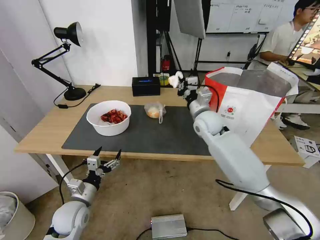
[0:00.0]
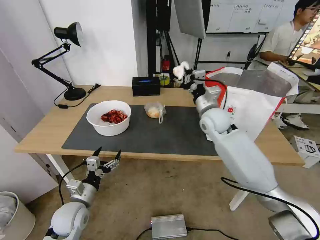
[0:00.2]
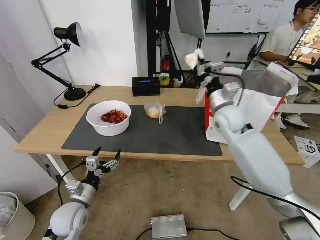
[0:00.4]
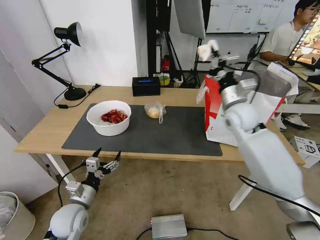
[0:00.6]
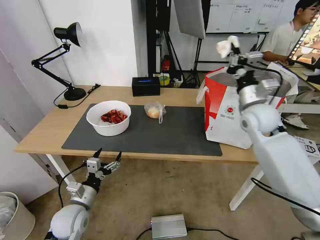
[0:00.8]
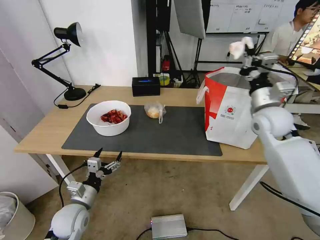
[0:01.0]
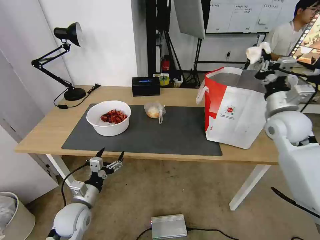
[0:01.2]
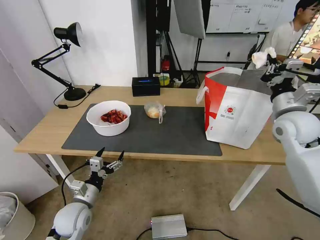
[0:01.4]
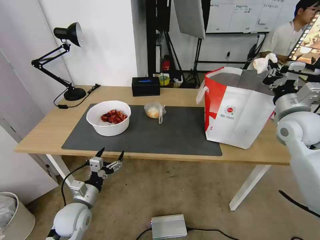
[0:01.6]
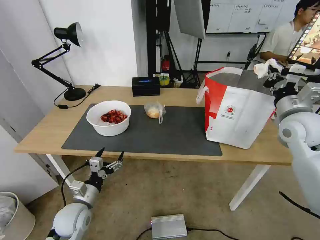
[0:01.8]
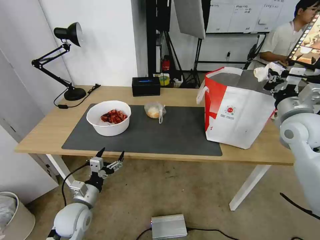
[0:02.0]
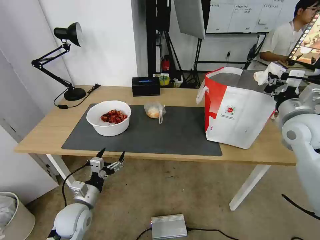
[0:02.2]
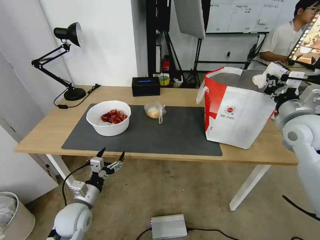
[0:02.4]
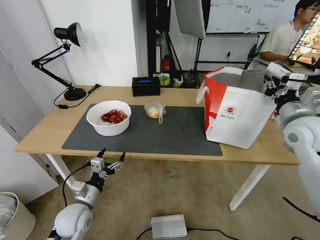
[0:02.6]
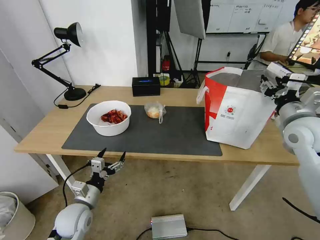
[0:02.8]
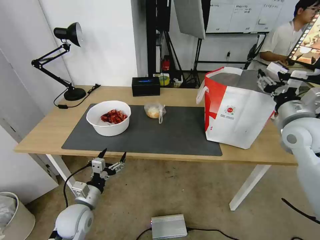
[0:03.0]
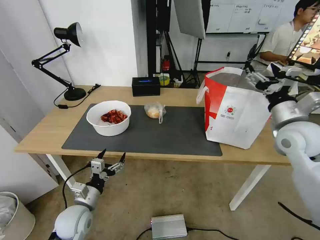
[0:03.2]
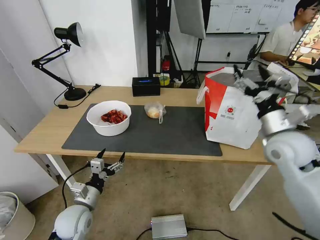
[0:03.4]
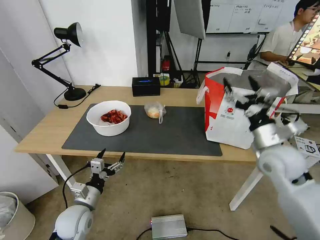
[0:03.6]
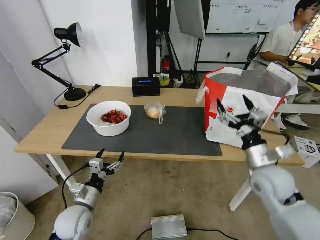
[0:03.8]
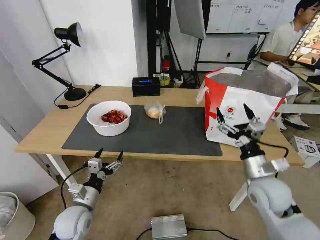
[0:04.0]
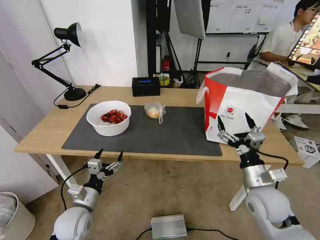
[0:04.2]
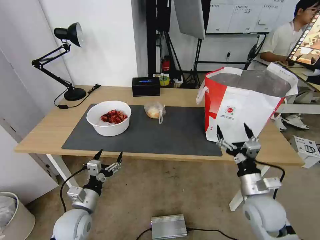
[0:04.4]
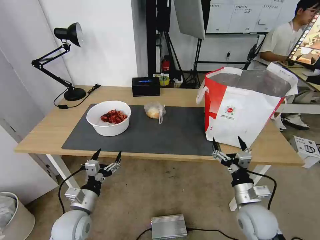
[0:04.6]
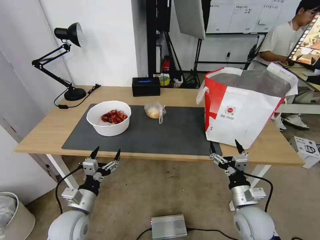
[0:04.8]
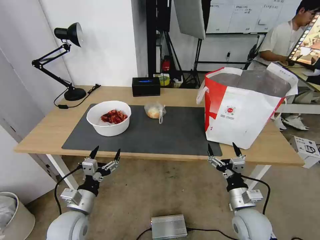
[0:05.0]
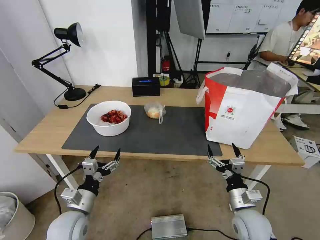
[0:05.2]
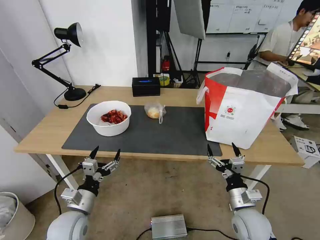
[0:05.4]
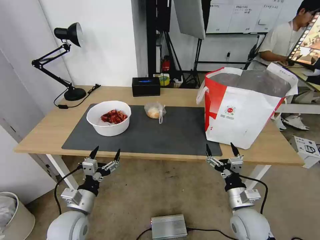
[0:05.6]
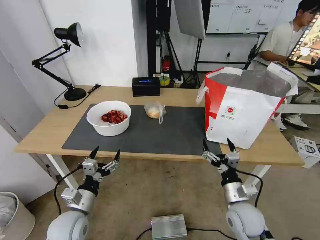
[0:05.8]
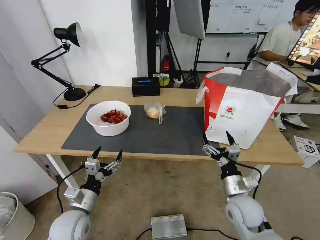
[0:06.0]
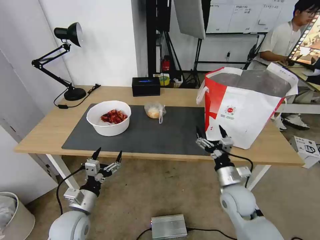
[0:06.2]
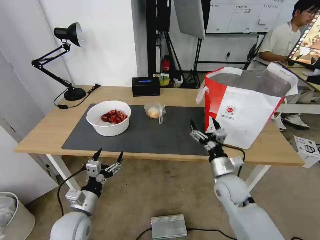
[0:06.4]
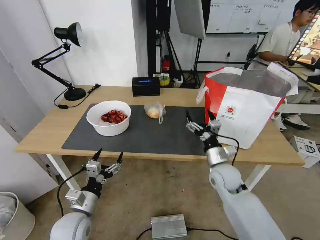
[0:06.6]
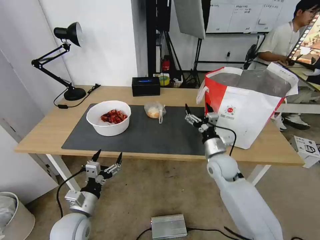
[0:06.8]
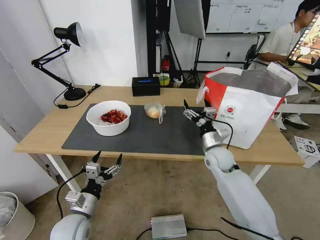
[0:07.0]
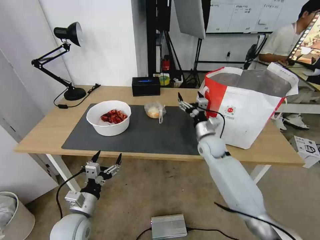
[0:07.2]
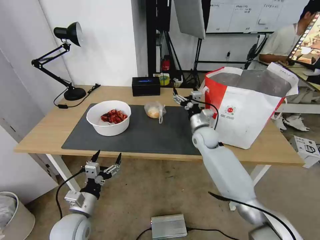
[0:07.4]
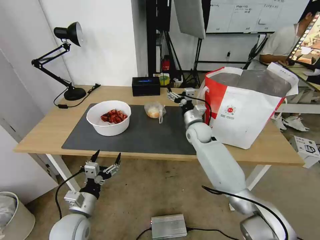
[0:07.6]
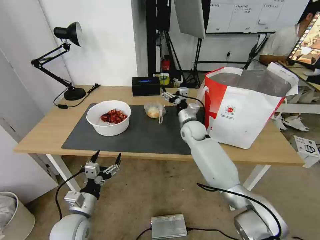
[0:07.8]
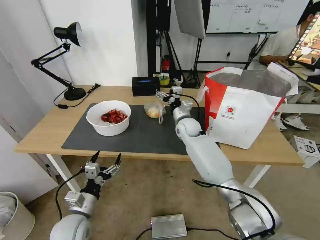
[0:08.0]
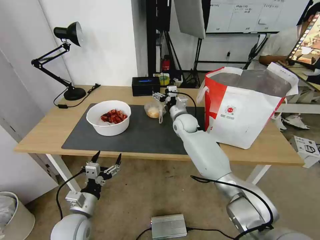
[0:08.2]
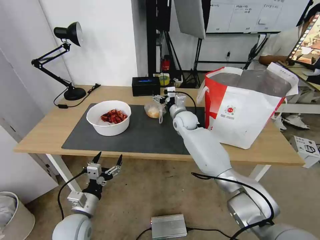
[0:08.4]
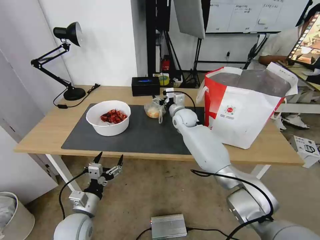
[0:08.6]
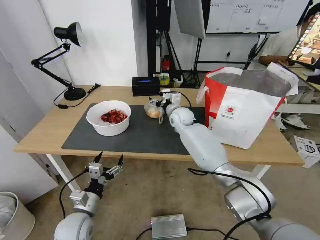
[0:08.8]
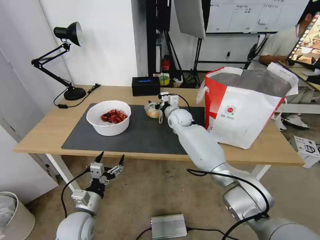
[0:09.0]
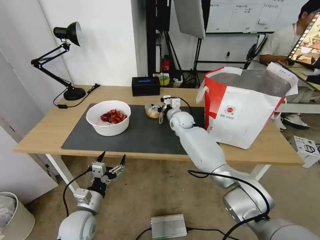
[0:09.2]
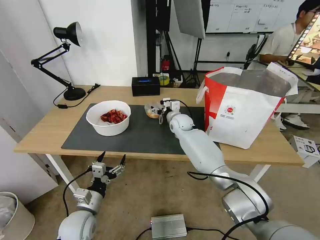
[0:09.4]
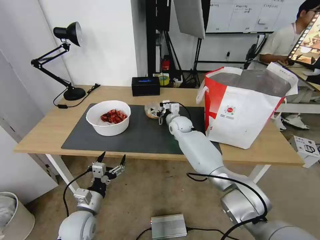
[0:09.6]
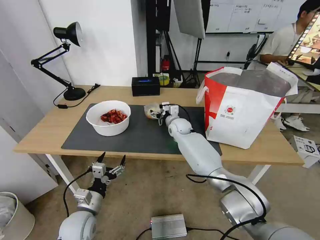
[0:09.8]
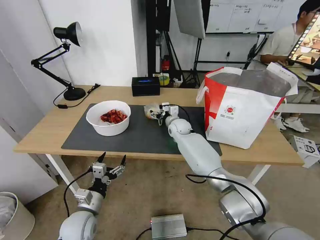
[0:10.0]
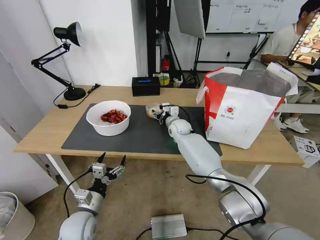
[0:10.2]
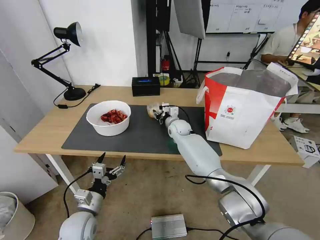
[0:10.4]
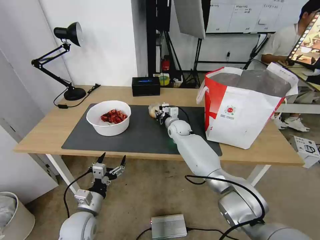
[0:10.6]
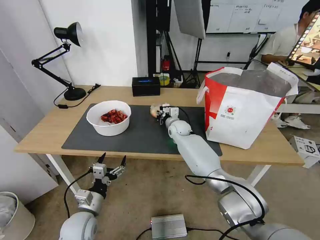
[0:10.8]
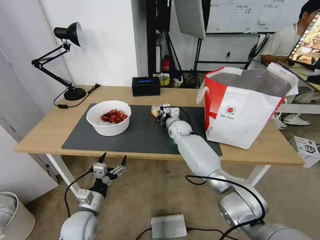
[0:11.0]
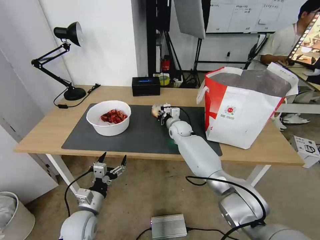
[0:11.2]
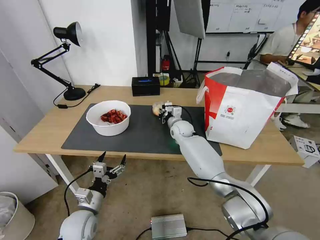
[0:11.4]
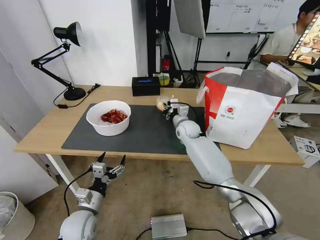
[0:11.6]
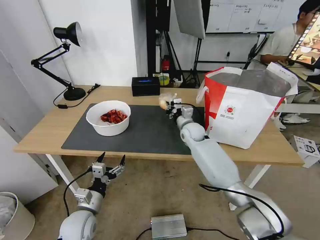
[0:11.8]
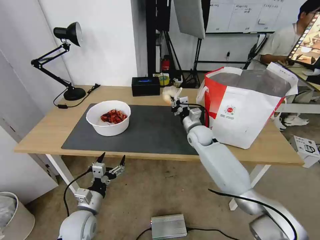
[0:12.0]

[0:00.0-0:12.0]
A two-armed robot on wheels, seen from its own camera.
Task of the whole recording: Pick up the trash from the table and place it into the takeout bag.
0:00.0 to 0:01.6: The right gripper goes roughly 25 cm to the right and backward.
0:01.6 to 0:03.0: The right gripper opens up.
0:03.0 to 0:04.4: The right gripper is displaced downward, backward and to the left by roughly 25 cm.
0:04.4 to 0:06.0: The right gripper moves about 5 cm.
0:06.0 to 0:07.6: The right gripper goes roughly 30 cm forward.
0:07.6 to 0:09.0: The right gripper is displaced to the left and forward by approximately 10 cm.
0:09.0 to 0:10.4: The right gripper is displaced downward by approximately 5 cm, and closes up.
0:10.4 to 0:12.0: The right gripper shifts about 10 cm to the right and backward, and closes up.

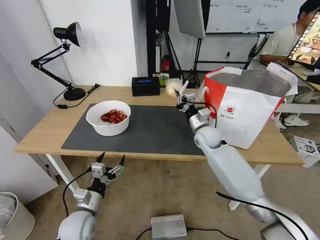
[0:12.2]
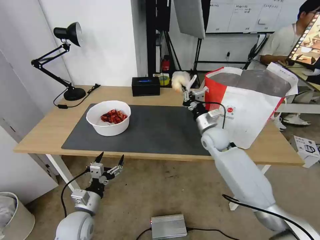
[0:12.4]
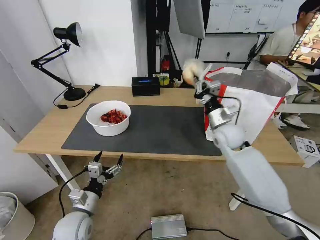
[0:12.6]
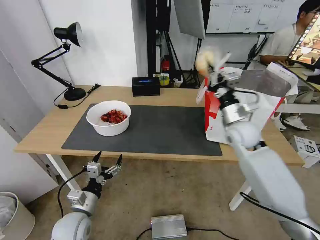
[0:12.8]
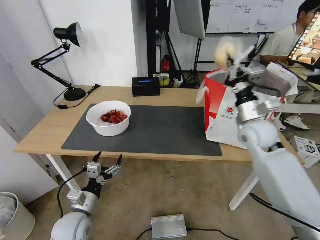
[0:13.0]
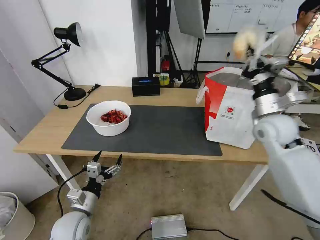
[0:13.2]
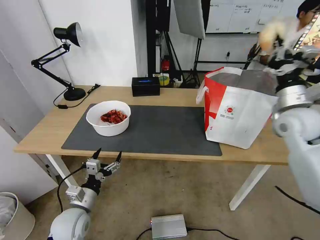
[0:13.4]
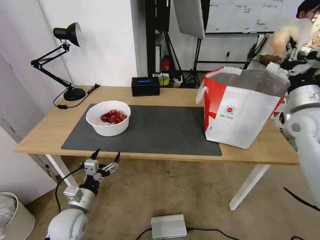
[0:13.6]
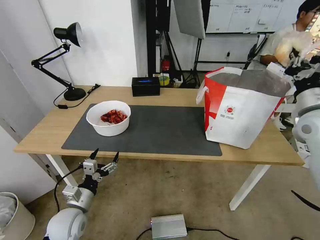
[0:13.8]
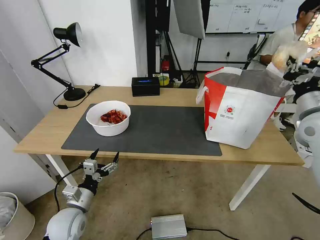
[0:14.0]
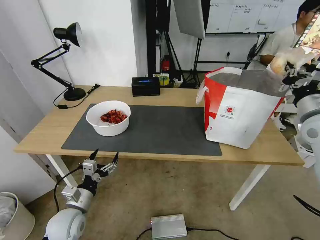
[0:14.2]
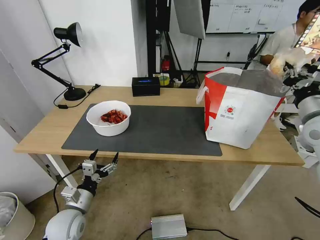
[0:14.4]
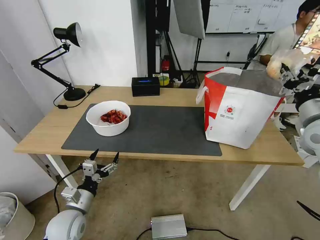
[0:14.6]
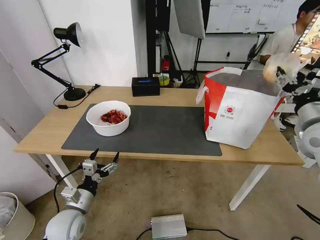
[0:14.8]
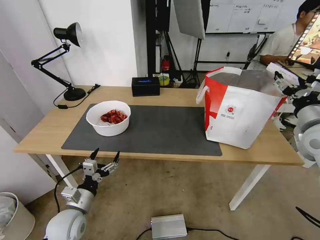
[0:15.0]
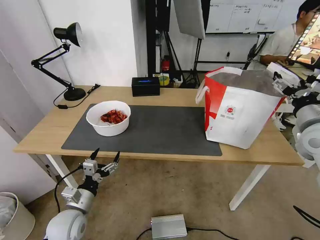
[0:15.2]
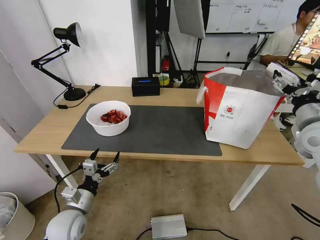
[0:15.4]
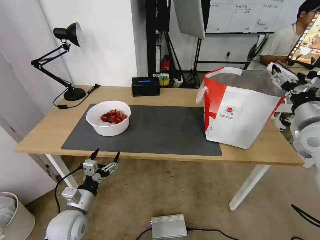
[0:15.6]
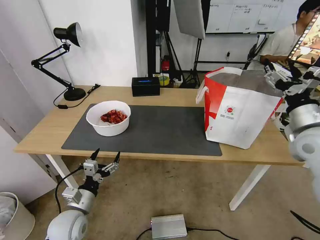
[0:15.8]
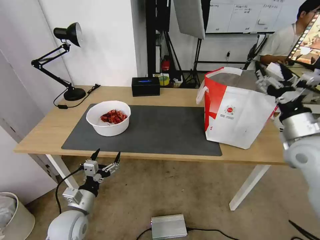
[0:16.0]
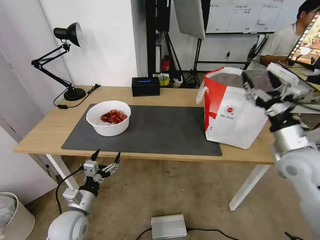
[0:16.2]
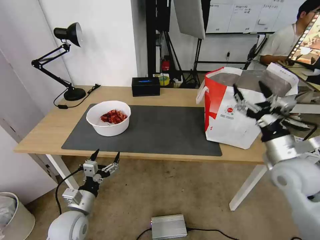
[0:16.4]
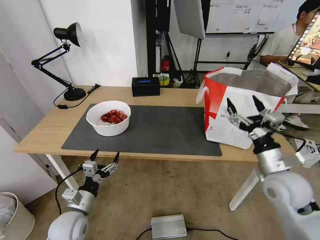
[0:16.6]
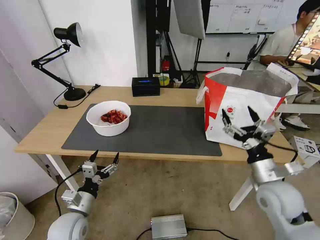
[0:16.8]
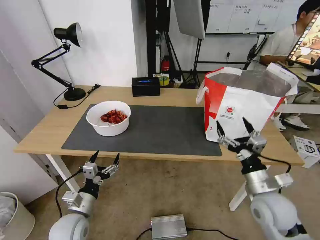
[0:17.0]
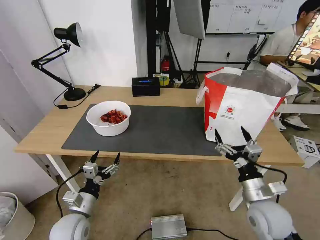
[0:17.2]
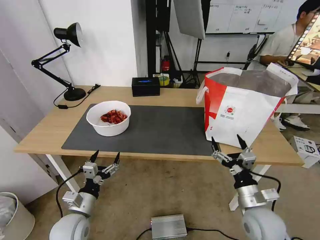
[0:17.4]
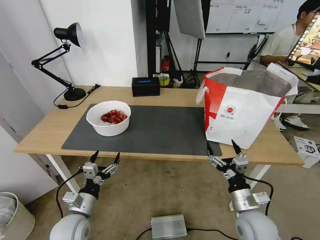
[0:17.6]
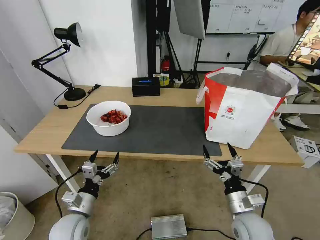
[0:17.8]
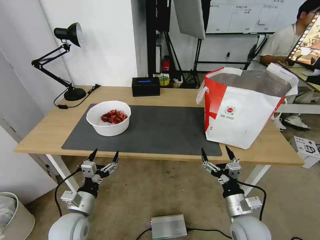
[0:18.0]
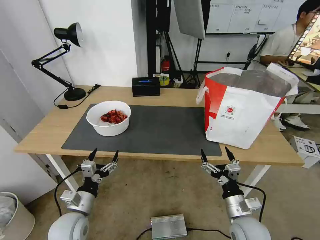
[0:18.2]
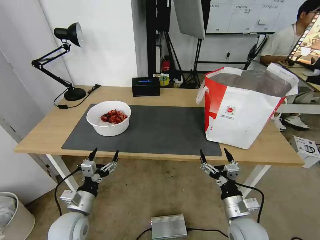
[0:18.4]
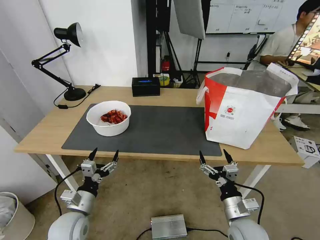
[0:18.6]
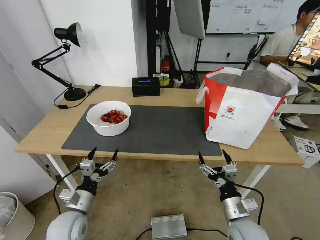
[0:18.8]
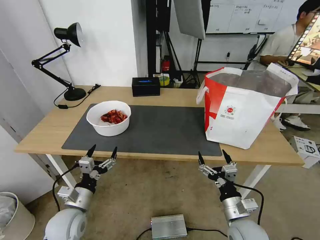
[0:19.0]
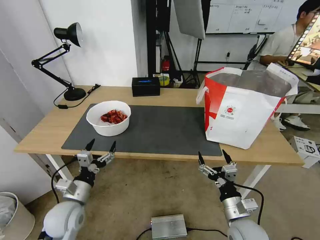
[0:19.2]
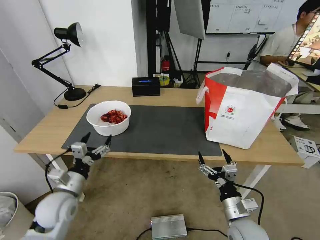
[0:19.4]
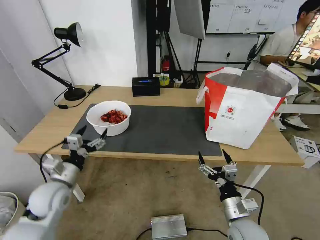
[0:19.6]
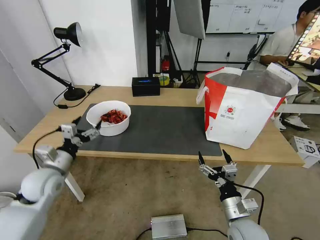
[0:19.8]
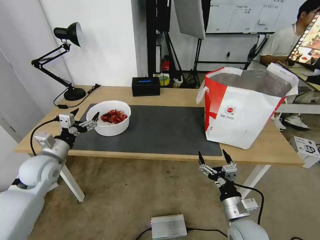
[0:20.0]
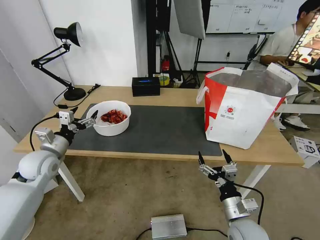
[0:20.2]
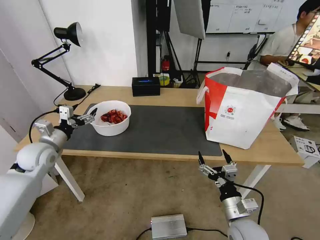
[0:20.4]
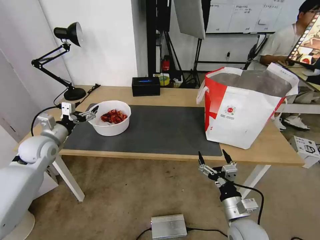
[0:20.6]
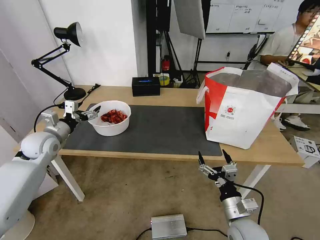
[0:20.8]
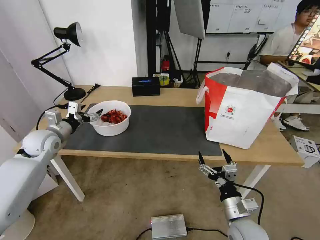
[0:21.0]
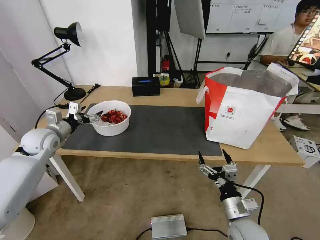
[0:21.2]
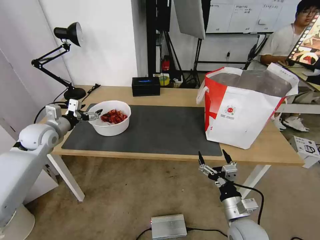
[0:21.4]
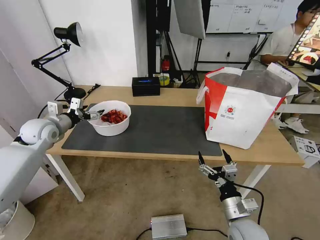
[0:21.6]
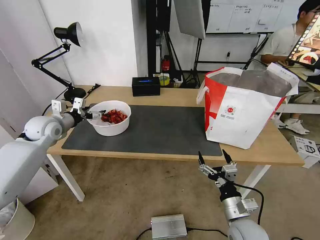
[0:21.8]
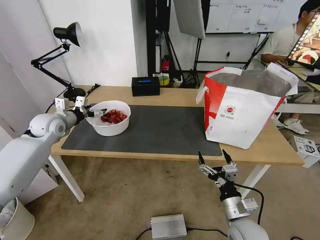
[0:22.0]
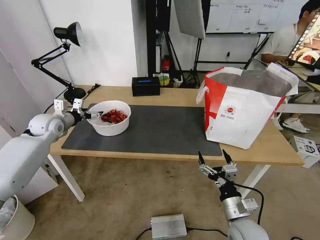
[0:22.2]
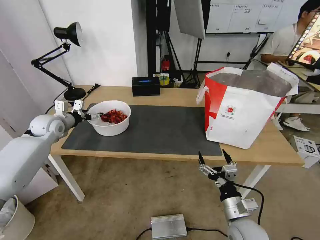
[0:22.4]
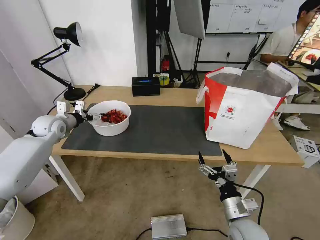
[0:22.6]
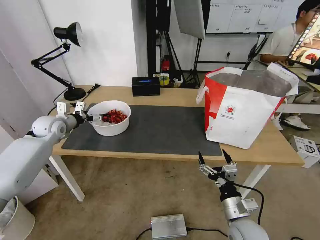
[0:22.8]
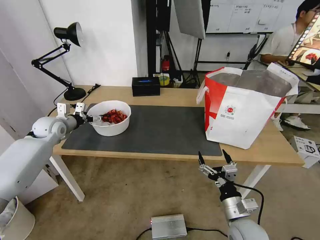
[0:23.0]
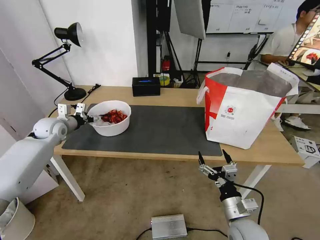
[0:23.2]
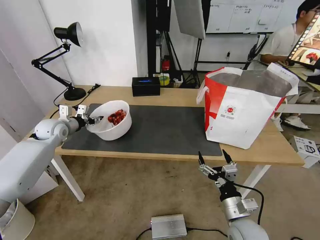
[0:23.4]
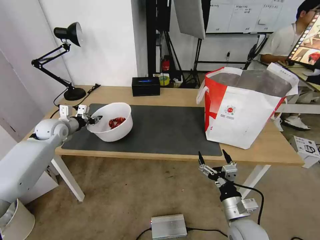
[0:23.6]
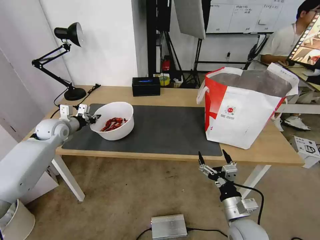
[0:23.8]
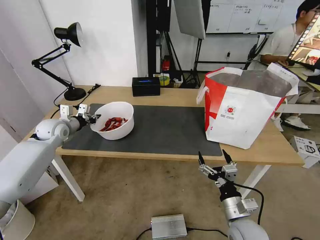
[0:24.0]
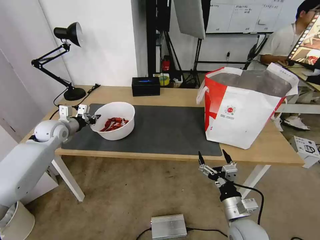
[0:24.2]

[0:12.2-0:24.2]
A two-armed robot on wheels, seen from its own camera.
Task of the whole recording: Pick up the trash from the table and place it into the takeout bag.
0:12.2 to 0:13.8: The right gripper goes about 30 cm to the right, upward and backward.
0:13.8 to 0:15.2: The right gripper opens up.
0:15.2 to 0:16.6: The right gripper shifts about 15 cm downward, to the left and backward.
0:16.6 to 0:18.2: The right gripper goes some 20 cm downward, backward and to the left.
0:18.2 to 0:19.8: The left gripper is displaced forward, upward and to the left by roughly 15 cm.
0:19.8 to 0:21.2: The left gripper shifts about 10 cm forward.
0:21.2 to 0:22.6: The left gripper is displaced forward by some 5 cm.
0:22.6 to 0:24.2: The left gripper closes.
